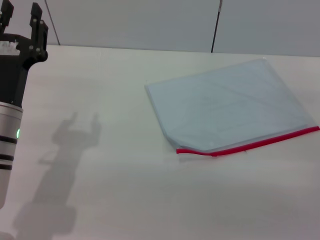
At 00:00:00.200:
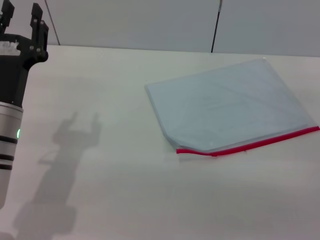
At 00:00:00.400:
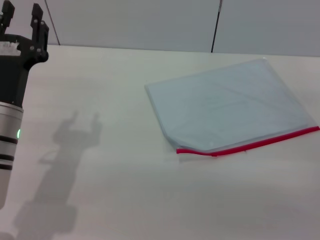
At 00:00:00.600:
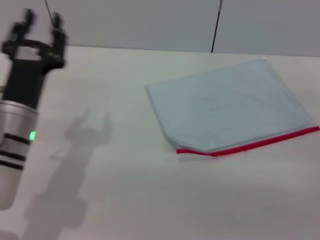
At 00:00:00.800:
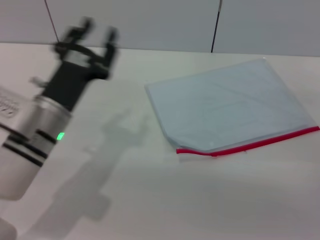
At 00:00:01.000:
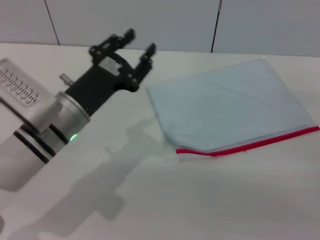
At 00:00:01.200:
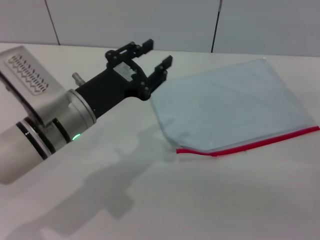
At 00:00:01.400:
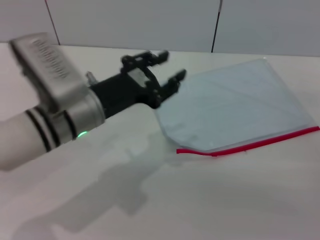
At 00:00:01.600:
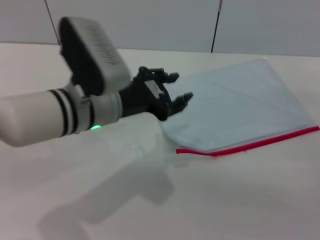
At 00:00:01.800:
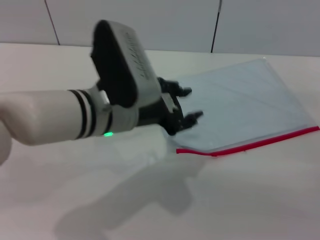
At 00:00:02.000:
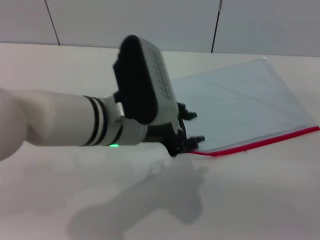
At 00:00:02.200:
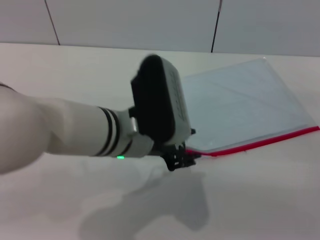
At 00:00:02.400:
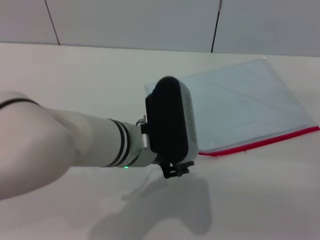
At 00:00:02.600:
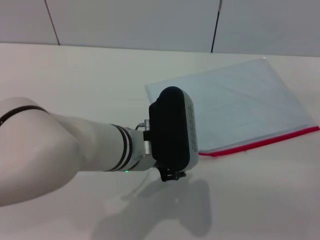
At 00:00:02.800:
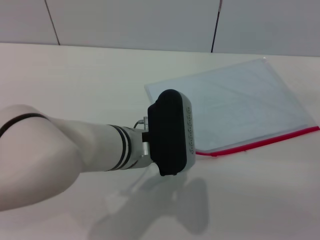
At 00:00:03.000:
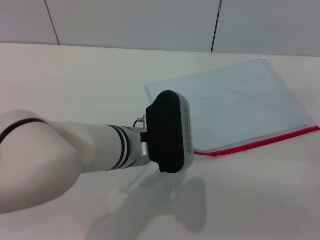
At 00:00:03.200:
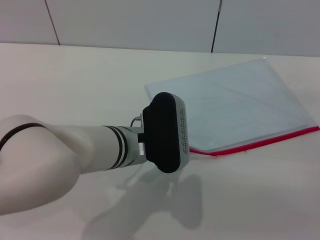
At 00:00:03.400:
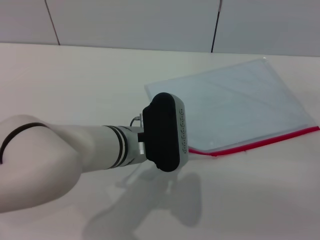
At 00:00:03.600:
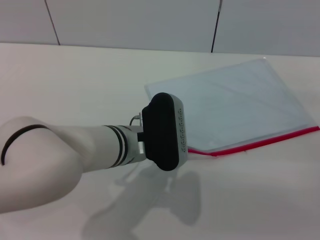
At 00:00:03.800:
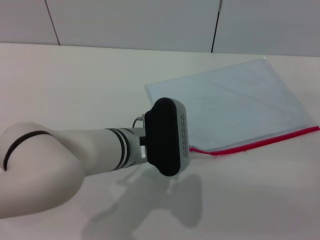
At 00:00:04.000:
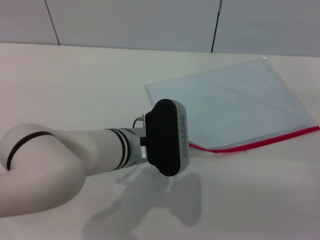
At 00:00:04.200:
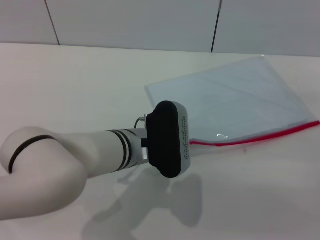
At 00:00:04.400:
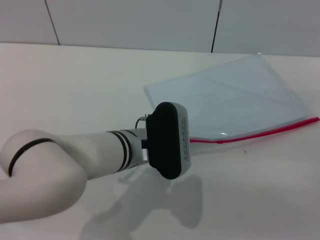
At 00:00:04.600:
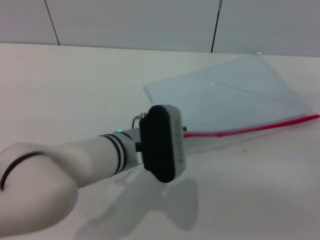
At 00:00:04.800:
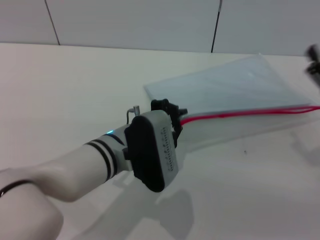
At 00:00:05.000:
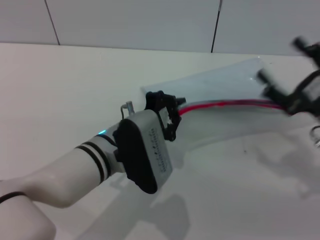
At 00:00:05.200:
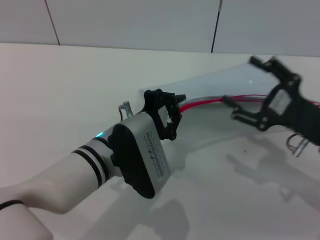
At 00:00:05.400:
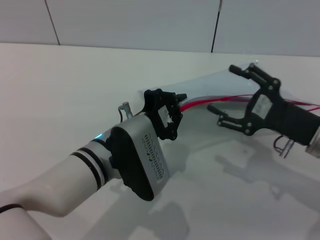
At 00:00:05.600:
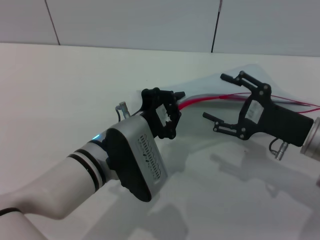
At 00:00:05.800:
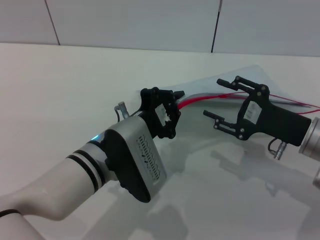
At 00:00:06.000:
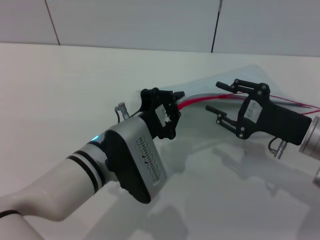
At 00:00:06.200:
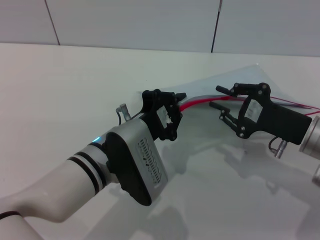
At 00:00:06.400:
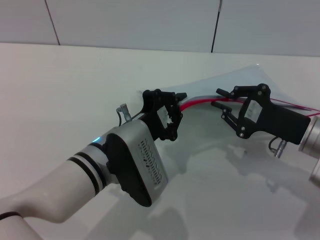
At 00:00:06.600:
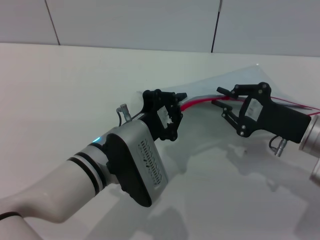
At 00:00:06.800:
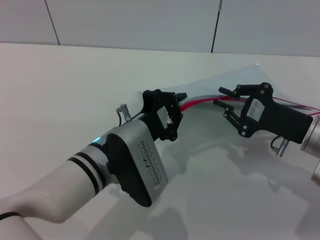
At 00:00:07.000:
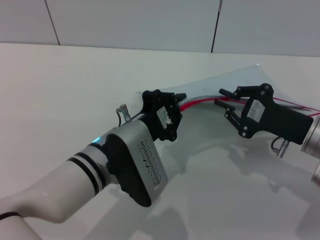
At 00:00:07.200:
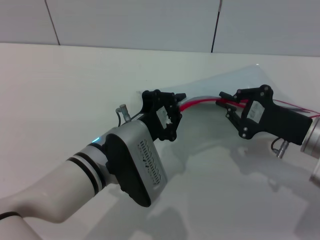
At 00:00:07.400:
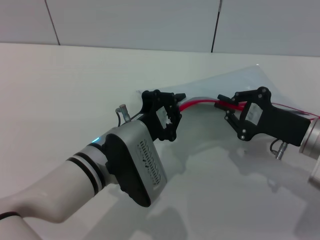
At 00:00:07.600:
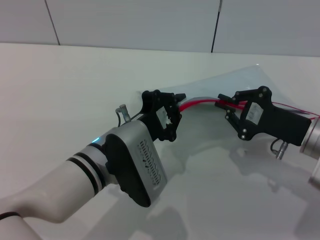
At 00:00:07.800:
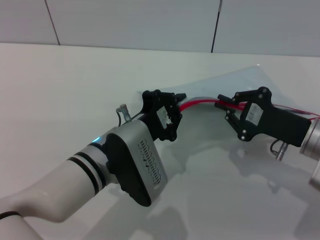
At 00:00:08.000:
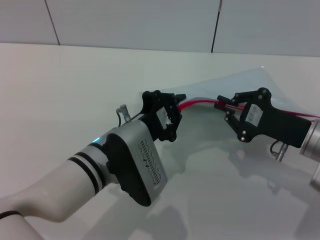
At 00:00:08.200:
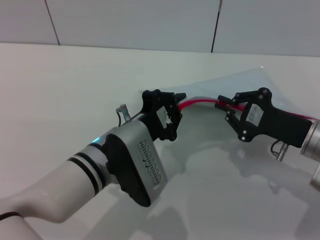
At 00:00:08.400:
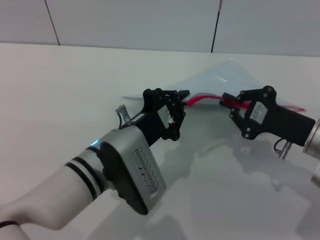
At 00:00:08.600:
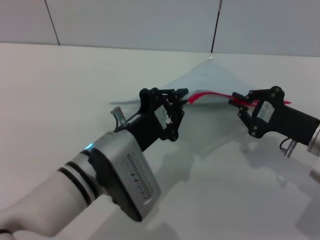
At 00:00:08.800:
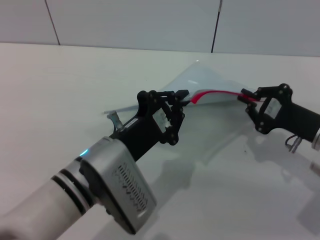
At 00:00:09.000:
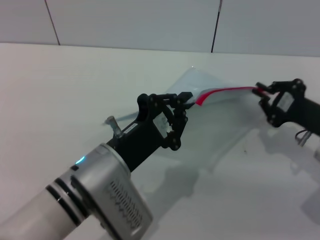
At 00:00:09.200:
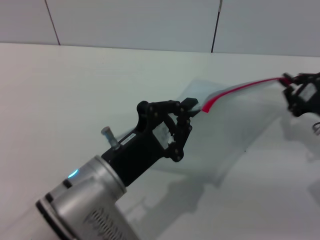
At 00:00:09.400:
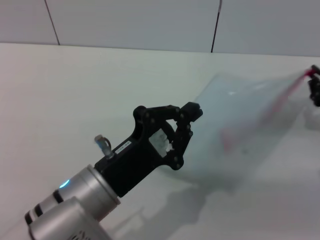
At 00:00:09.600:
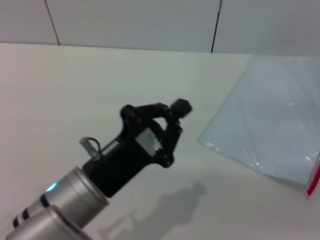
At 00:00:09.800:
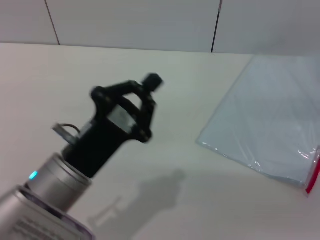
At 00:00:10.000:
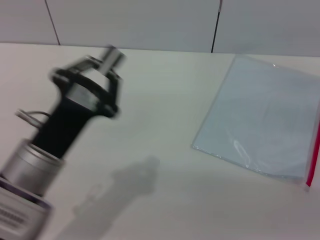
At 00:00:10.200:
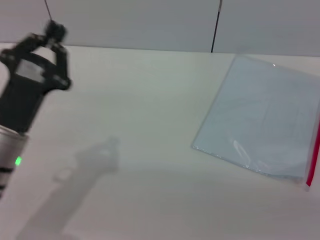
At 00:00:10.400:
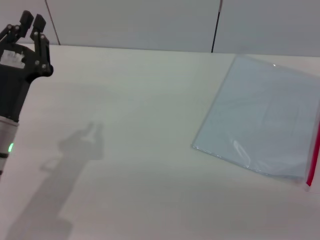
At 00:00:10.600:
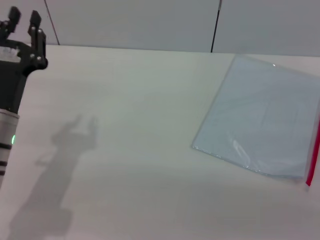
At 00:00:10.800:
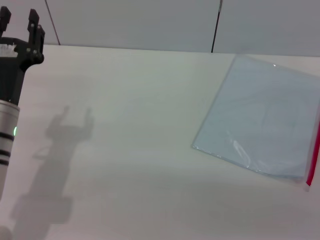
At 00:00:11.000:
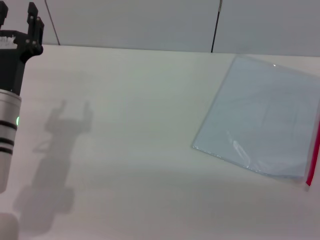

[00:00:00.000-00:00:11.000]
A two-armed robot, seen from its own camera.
Step, 00:00:00.000 to 00:00:04.600: Pick up the transparent plastic bag with the left gripper.
Step, 00:00:04.800 to 00:00:09.800: Pulling up the zipper on the transparent plastic bag with the right gripper to close it.
00:00:00.000 to 00:00:01.600: The left gripper heads to the right and upward, covering roughly 10 cm.
00:00:01.600 to 00:00:03.200: The left gripper shifts about 5 cm to the right.
00:00:03.200 to 00:00:04.800: The left gripper closes.
00:00:04.800 to 00:00:06.200: The right gripper is displaced to the left by approximately 5 cm, and closes.
00:00:06.200 to 00:00:07.800: The right gripper closes up.
00:00:07.800 to 00:00:09.400: The left gripper travels backward by approximately 10 cm. The right gripper shifts about 10 cm to the right.
00:00:09.400 to 00:00:11.000: The left gripper shifts some 15 cm to the left and forward, and opens its fingers, while the right gripper travels backward by roughly 5 cm, and opens up.

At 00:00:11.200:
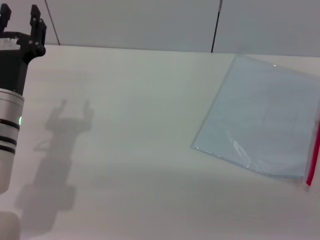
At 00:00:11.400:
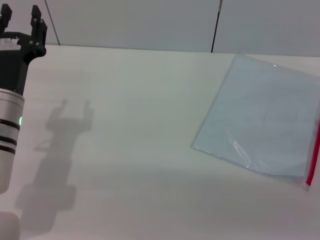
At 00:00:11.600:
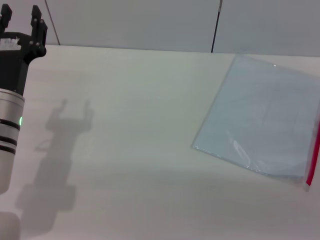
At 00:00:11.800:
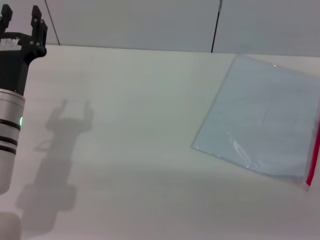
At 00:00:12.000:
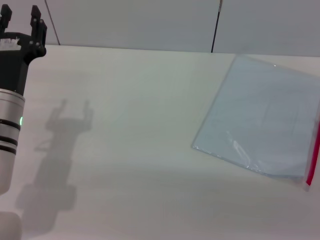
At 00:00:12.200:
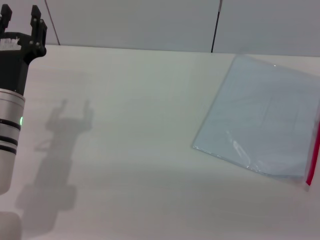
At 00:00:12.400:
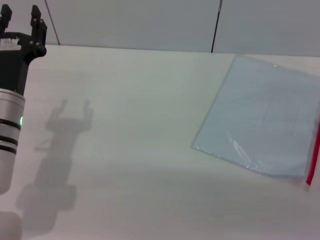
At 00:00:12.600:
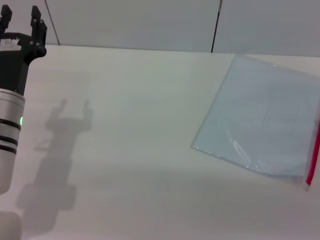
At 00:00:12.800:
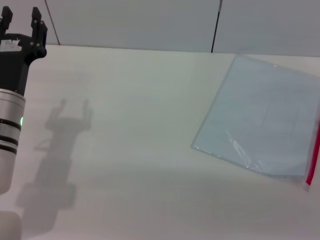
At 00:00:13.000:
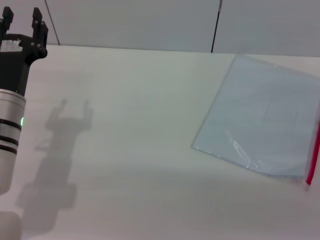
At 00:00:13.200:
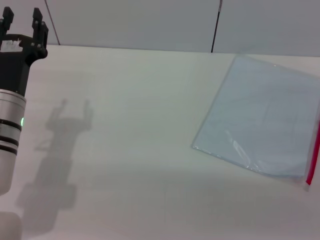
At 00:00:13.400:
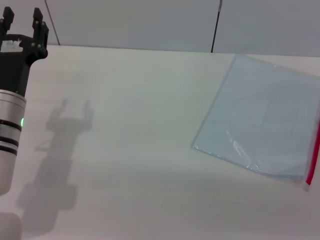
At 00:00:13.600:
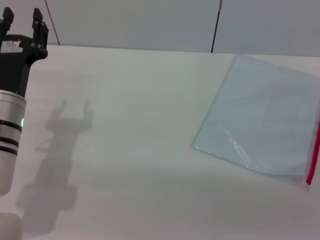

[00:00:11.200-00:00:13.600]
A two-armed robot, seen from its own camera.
00:00:11.200 to 00:00:13.600: Neither gripper changes place.
